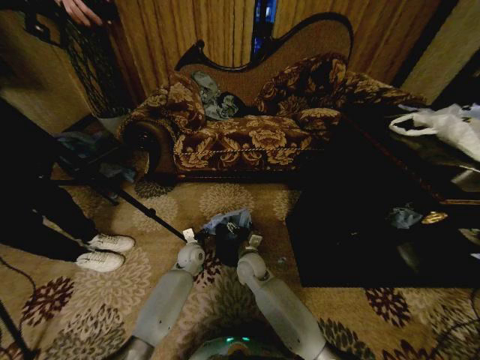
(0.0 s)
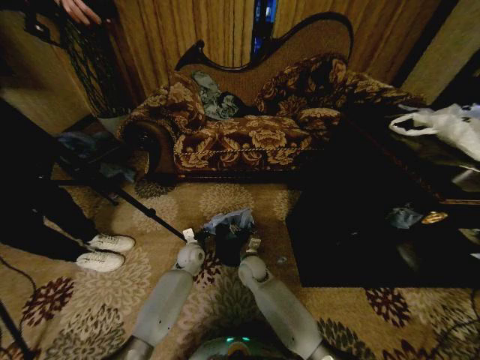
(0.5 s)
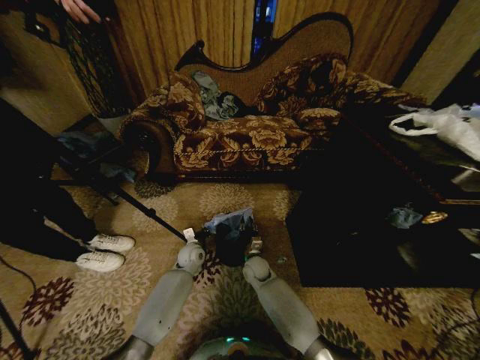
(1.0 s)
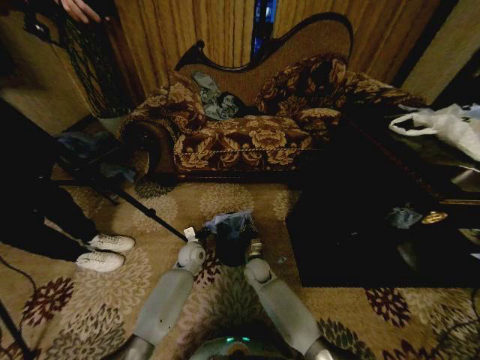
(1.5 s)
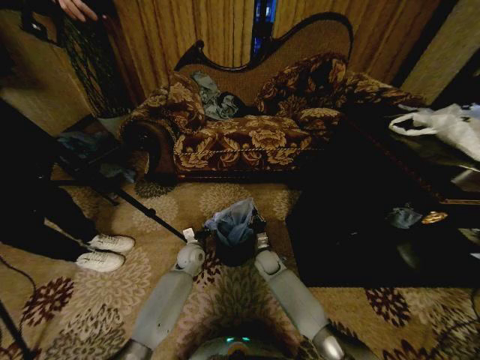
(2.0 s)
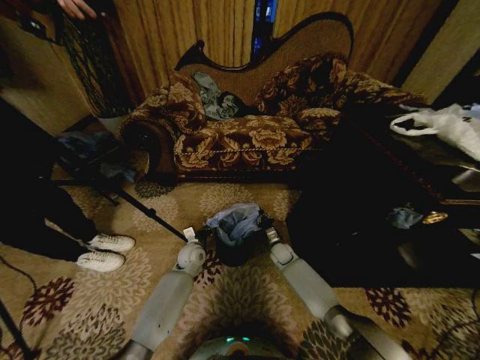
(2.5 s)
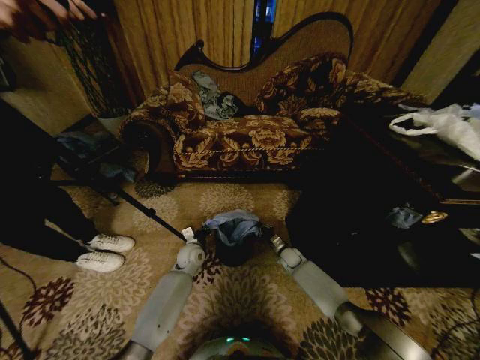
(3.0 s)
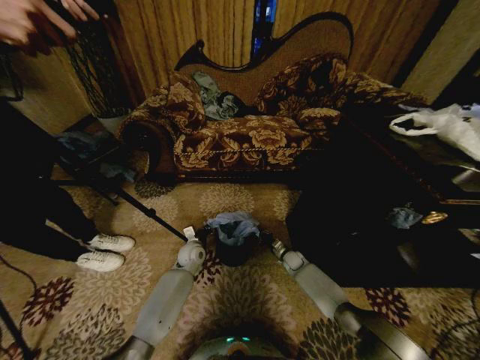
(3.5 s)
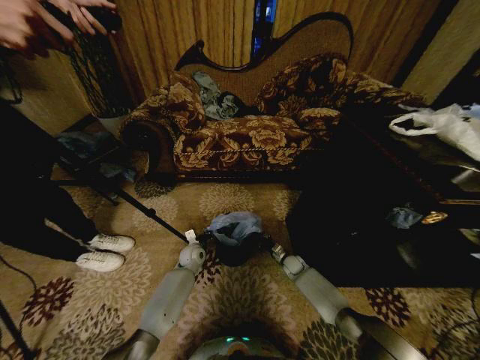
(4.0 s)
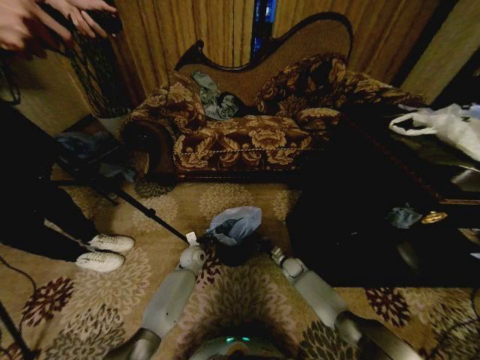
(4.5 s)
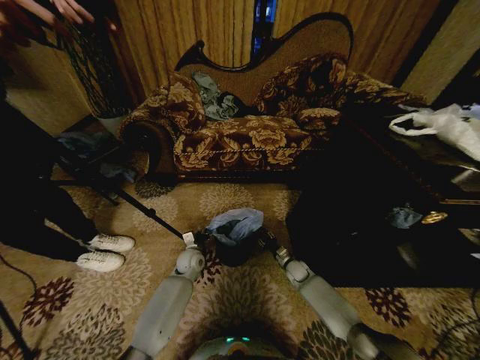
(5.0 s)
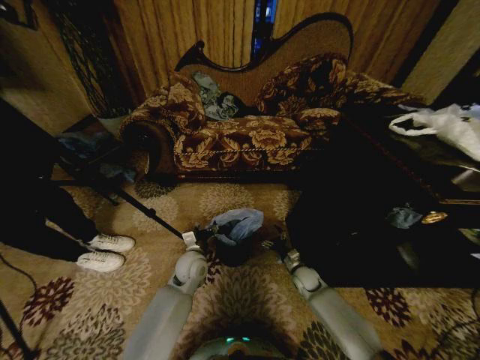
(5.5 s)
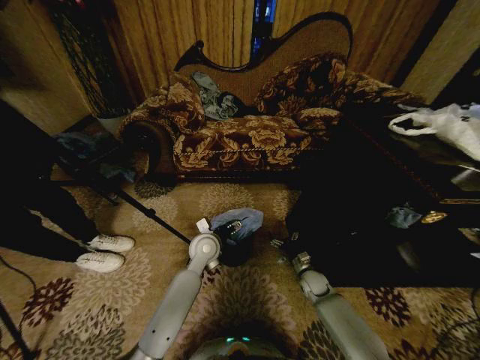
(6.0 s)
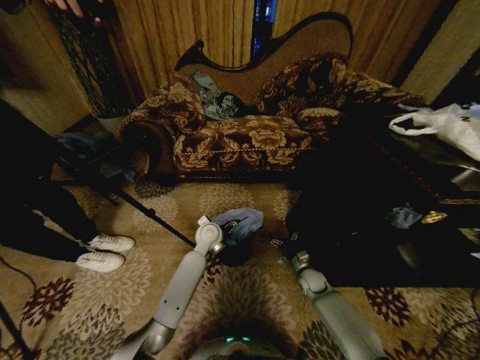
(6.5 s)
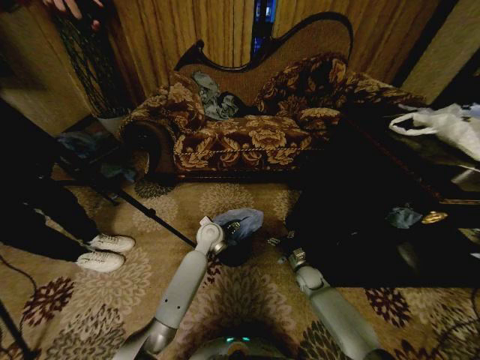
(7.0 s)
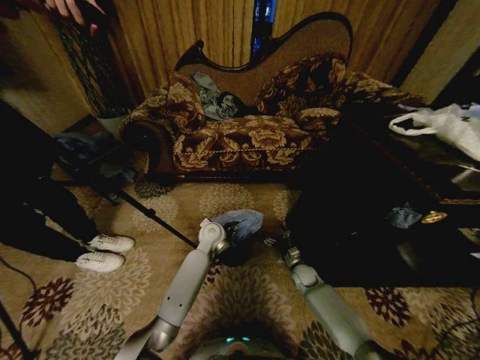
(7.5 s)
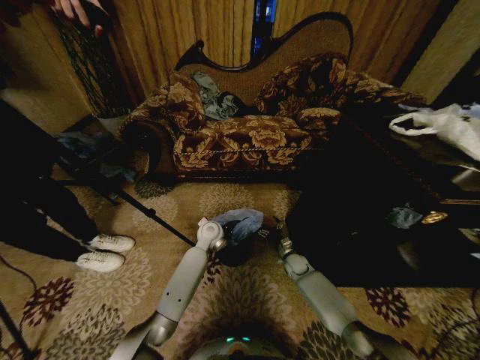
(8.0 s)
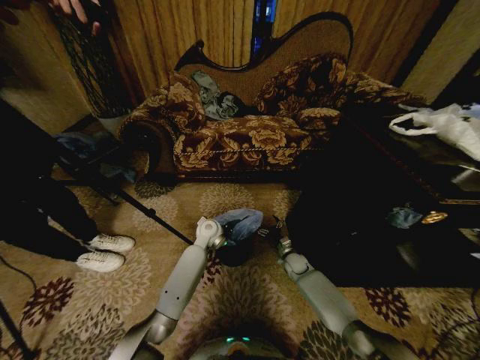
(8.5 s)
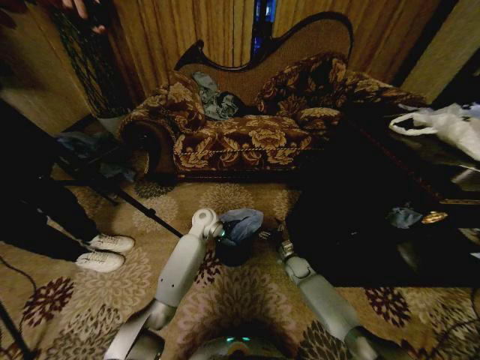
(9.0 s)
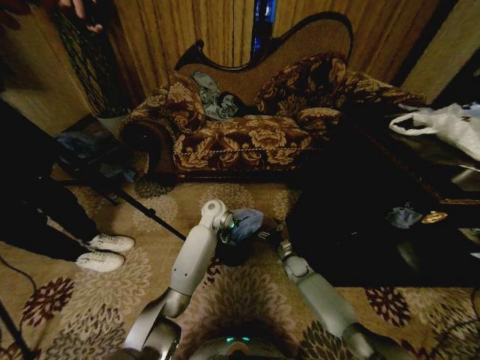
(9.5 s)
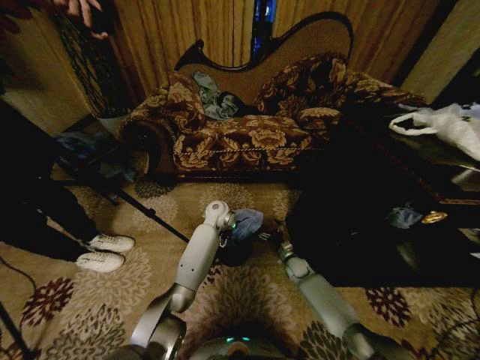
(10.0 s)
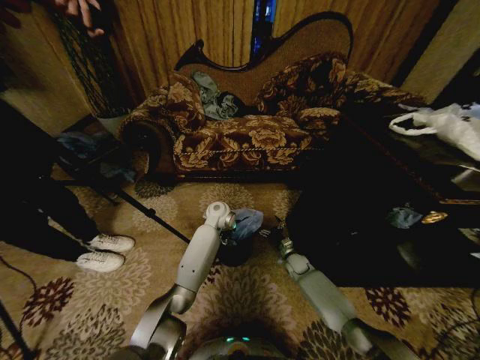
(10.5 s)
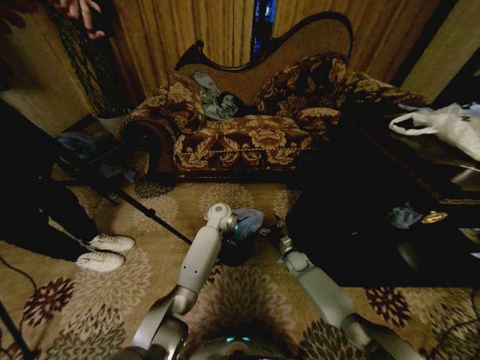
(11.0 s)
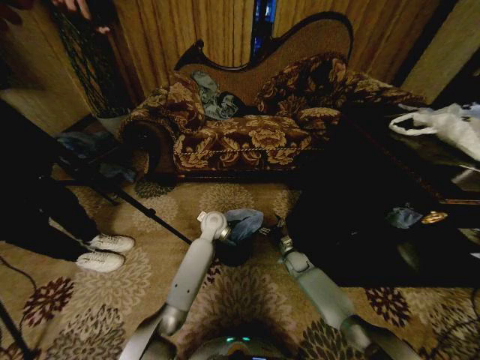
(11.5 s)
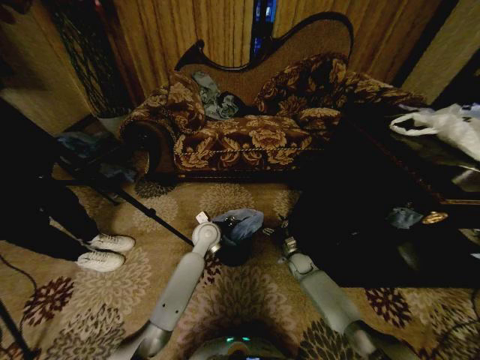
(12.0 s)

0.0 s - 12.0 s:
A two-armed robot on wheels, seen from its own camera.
Task of the whole recording: Place a garbage bag over the trash bin.
0.0 s - 2.0 s: The right gripper is displaced downward, to the right and forward by about 10 cm, and closes its fingers.
2.0 s - 4.0 s: The right gripper moves to the right and downward, about 15 cm.
4.0 s - 6.0 s: The right gripper travels backward by about 10 cm, and opens up, while the left gripper travels upward and to the right by about 15 cm, and opens.
6.0 s - 8.0 s: Both grippers travel together forward, some 10 cm. The left gripper closes its fingers.
8.0 s - 10.0 s: The left gripper shifts approximately 5 cm forward, and opens its fingers.
10.0 s - 12.0 s: The left gripper travels backward by about 10 cm, and closes, then opens again.

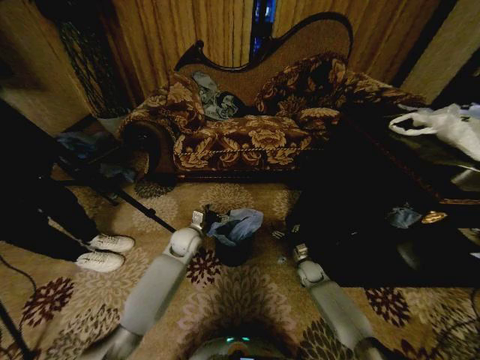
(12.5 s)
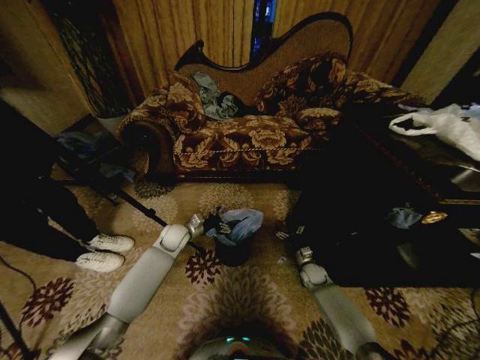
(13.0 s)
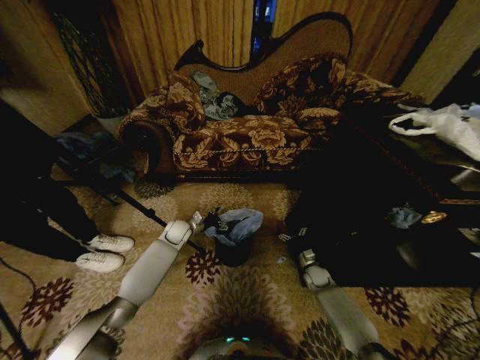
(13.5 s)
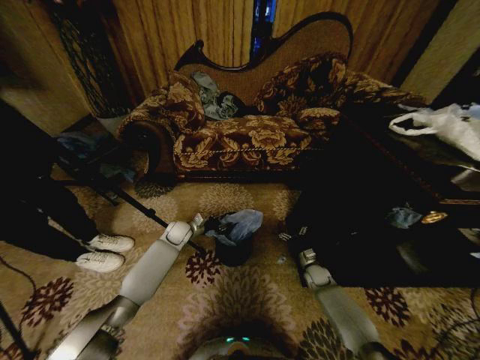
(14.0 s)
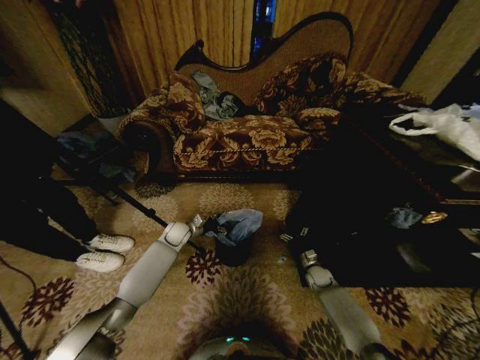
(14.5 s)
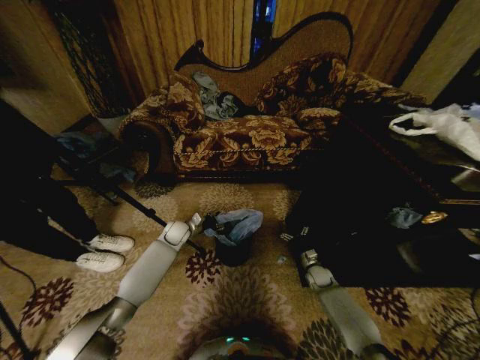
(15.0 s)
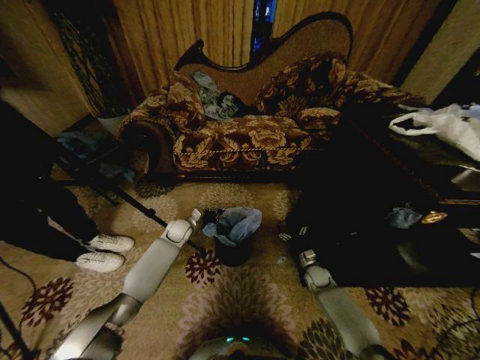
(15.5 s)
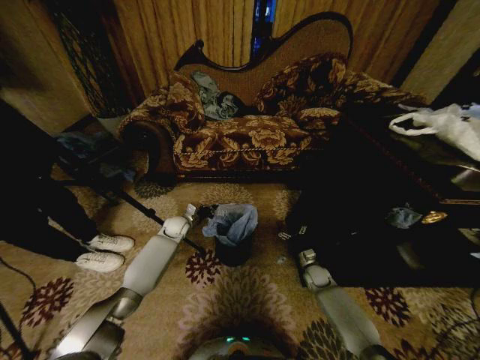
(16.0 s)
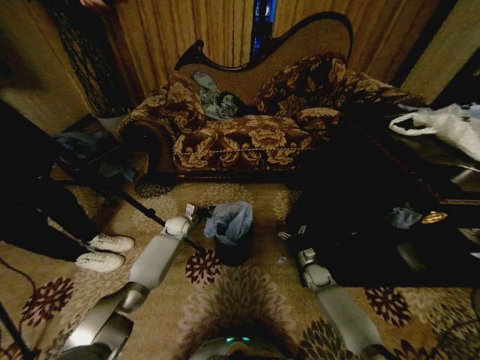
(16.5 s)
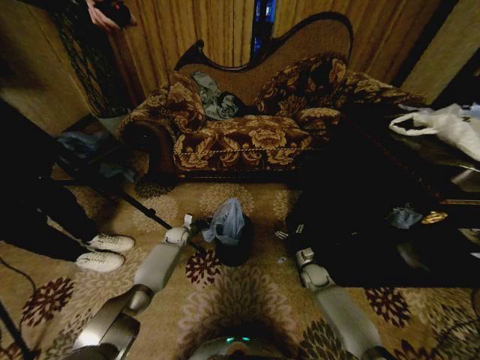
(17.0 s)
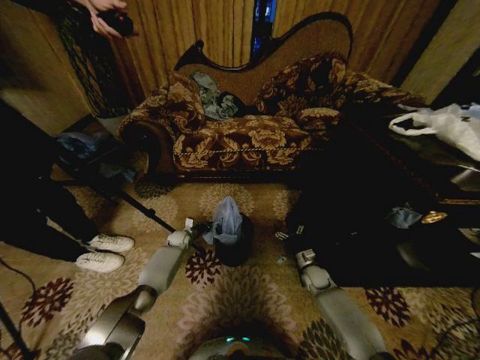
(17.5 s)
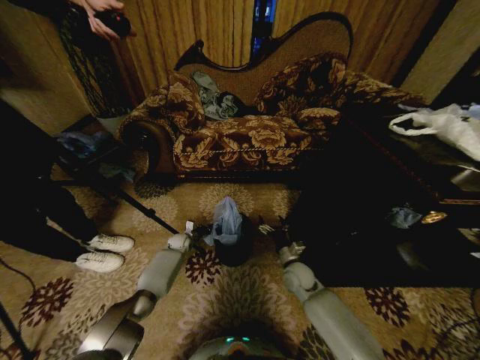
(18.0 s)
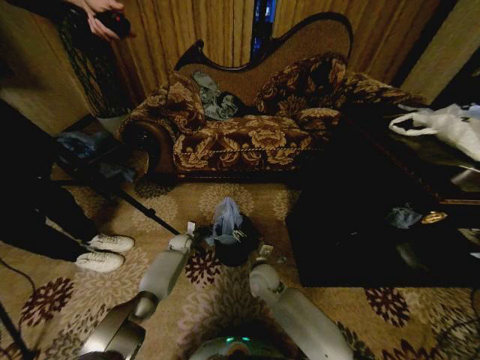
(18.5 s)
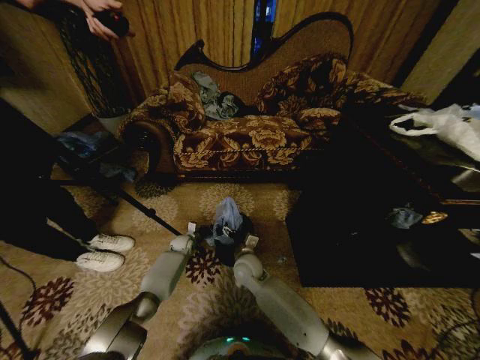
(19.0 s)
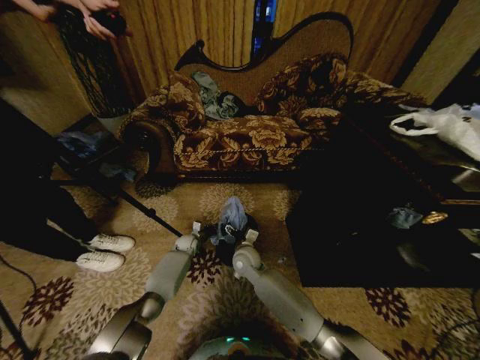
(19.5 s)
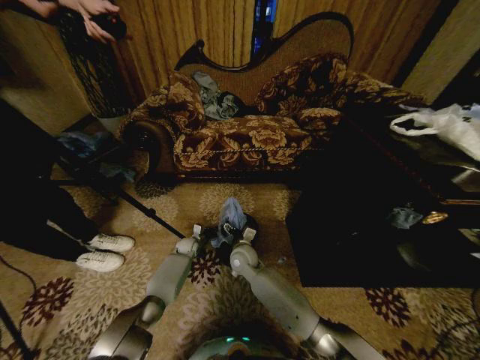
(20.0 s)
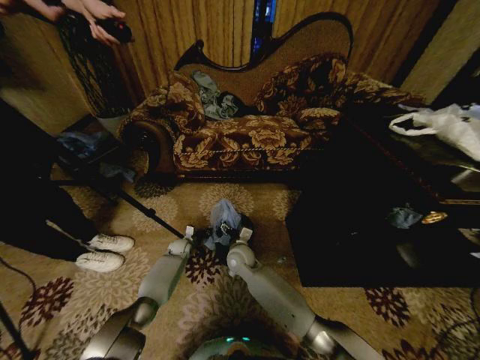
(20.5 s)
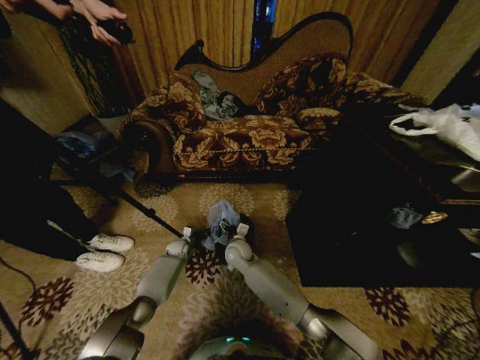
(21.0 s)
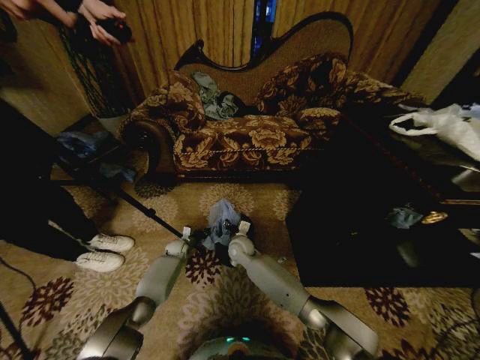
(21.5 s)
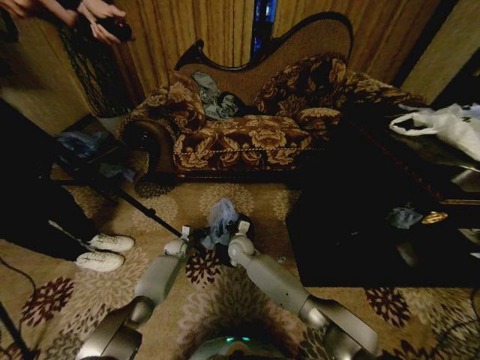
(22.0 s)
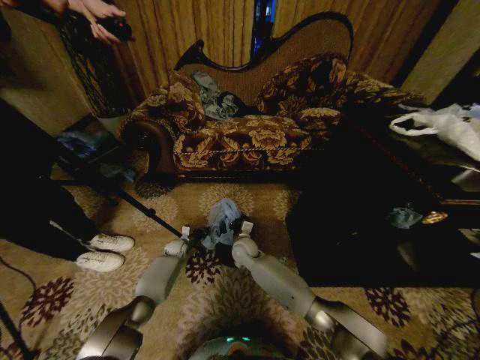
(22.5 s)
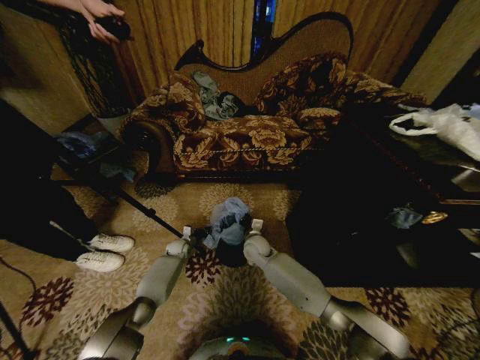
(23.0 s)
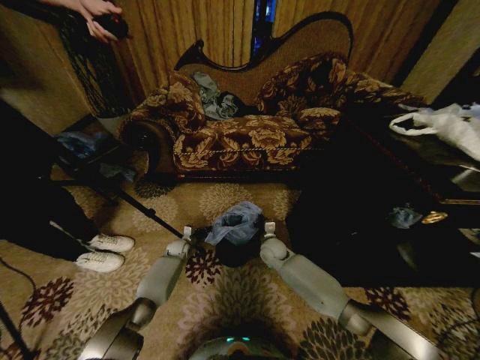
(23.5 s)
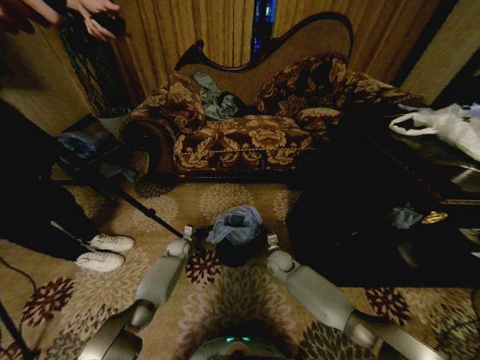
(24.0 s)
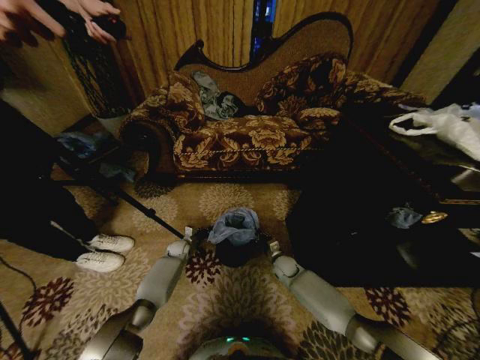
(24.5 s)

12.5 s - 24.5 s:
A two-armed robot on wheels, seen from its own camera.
Task of the whole recording: Place a garbage bag over the trash bin.
12.5 s - 14.5 s: The left gripper heads to the left and forward, covering some 10 cm.
14.5 s - 16.5 s: The left gripper changes place by some 5 cm, and closes up.
16.5 s - 18.5 s: The left gripper travels downward by some 10 cm; the right gripper shifts approximately 25 cm to the left and upward.
18.5 s - 20.5 s: The right gripper goes some 10 cm to the left and forward.
20.5 s - 22.5 s: The right gripper closes.
22.5 s - 24.5 s: The right gripper shifts approximately 20 cm to the right and downward.

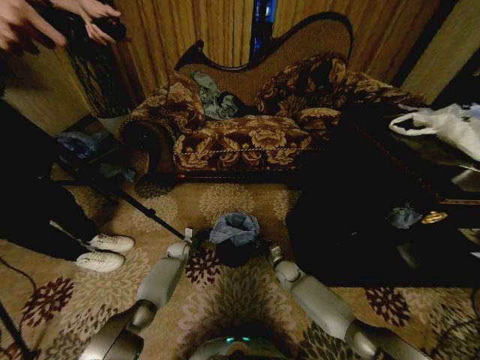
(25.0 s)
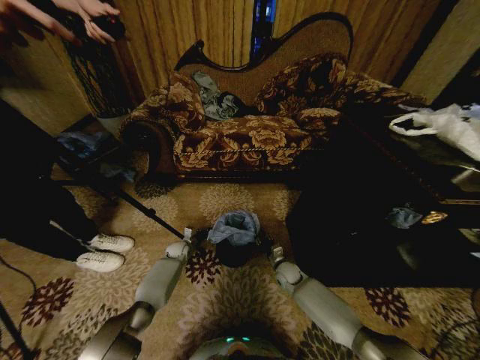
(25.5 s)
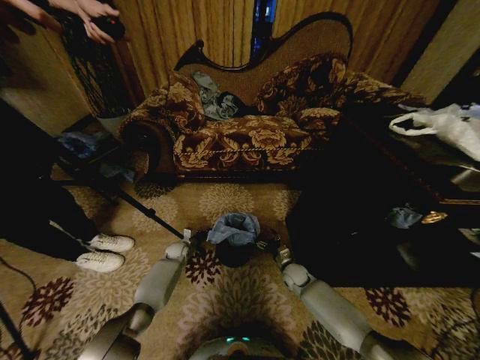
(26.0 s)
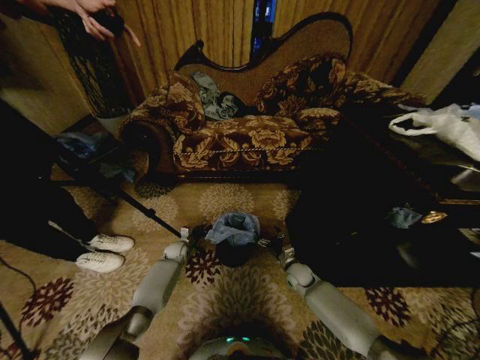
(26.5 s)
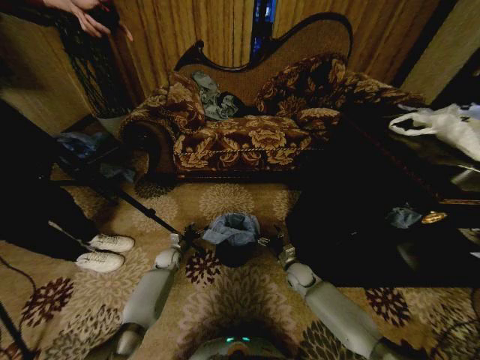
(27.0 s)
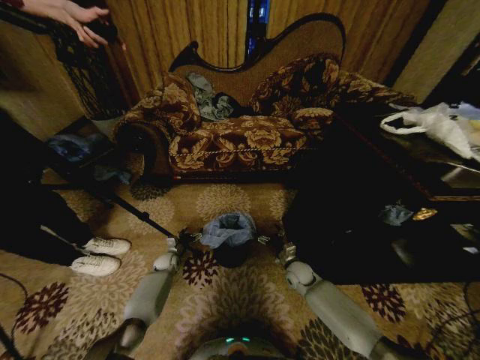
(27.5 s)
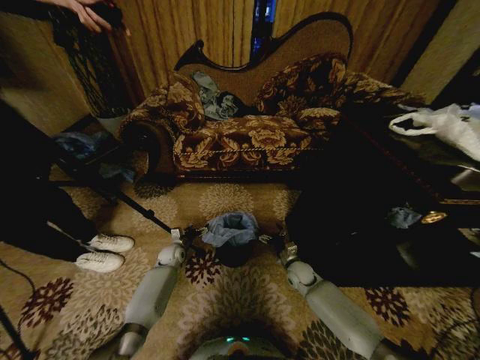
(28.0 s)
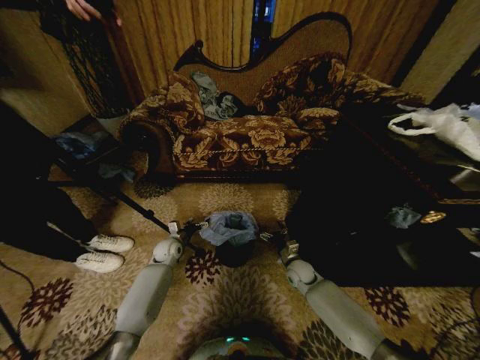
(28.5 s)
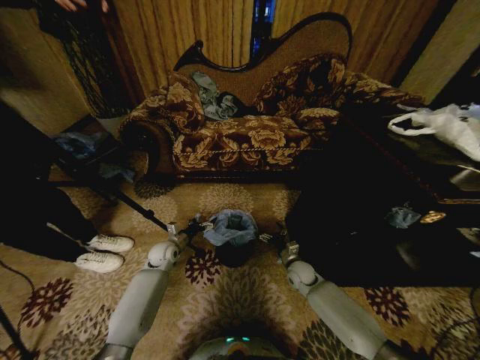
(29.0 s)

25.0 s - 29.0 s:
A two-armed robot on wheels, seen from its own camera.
Task of the whole recording: Place a garbage bag over the trash bin.
25.0 s - 27.0 s: The right gripper changes place by approximately 5 cm, and opens up. The left gripper changes place by some 5 cm, and opens up.
27.0 s - 29.0 s: The left gripper heads upward, covering about 10 cm.
